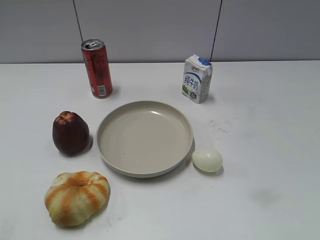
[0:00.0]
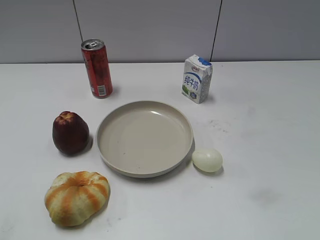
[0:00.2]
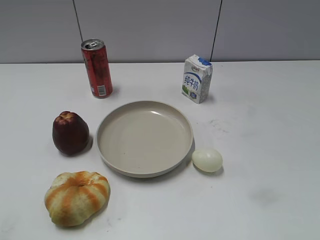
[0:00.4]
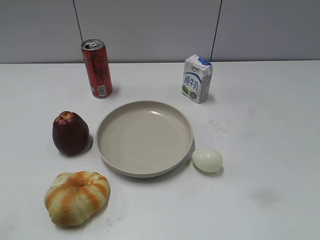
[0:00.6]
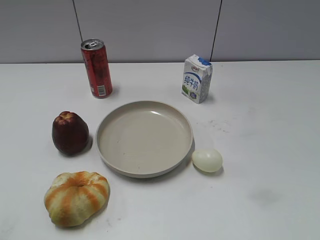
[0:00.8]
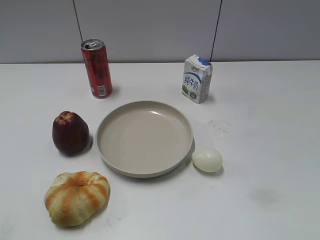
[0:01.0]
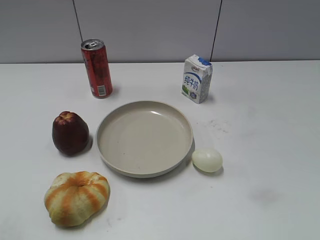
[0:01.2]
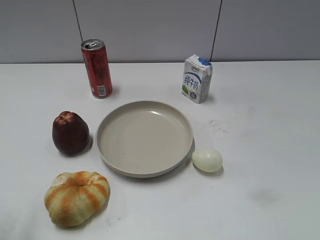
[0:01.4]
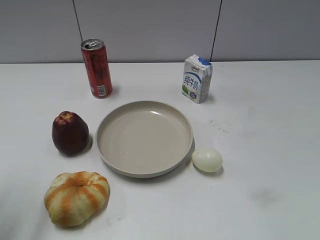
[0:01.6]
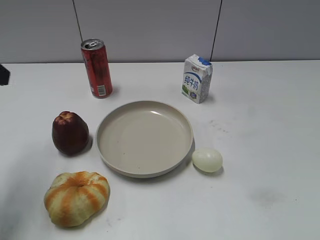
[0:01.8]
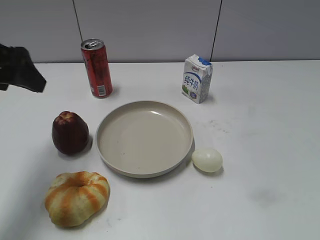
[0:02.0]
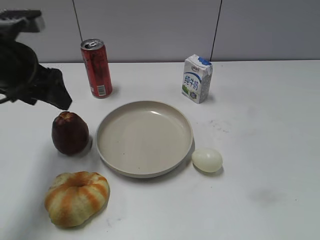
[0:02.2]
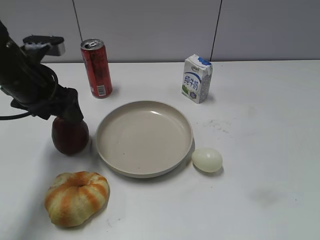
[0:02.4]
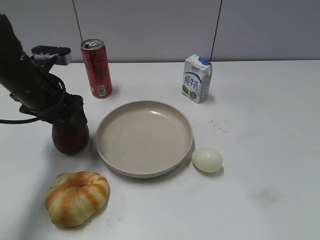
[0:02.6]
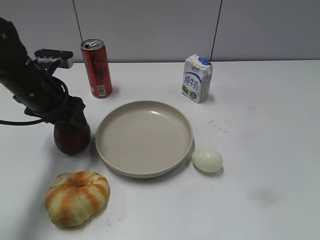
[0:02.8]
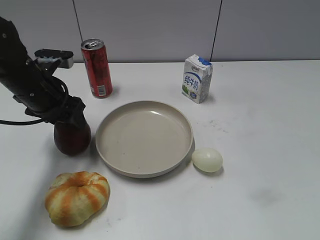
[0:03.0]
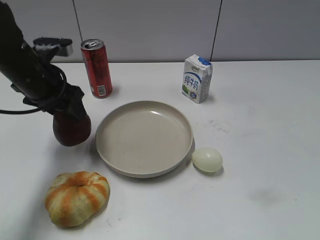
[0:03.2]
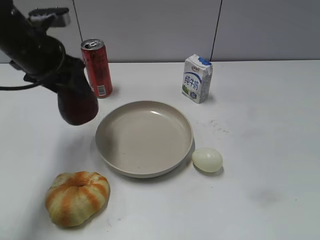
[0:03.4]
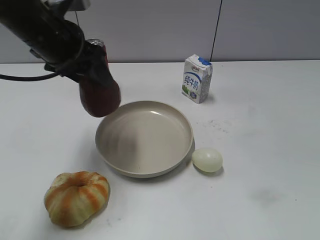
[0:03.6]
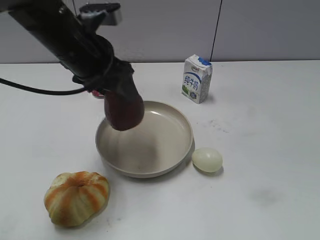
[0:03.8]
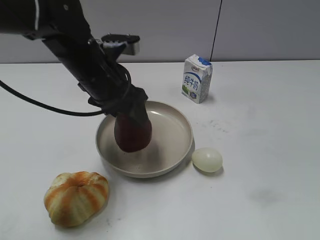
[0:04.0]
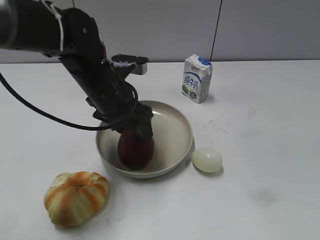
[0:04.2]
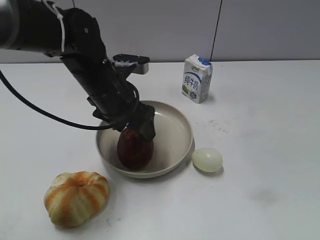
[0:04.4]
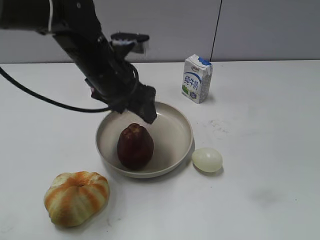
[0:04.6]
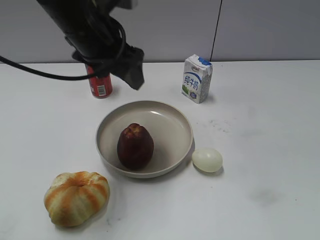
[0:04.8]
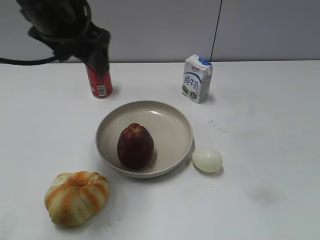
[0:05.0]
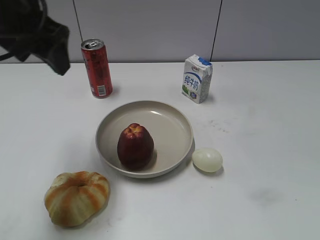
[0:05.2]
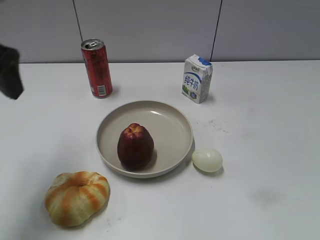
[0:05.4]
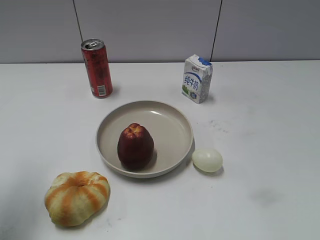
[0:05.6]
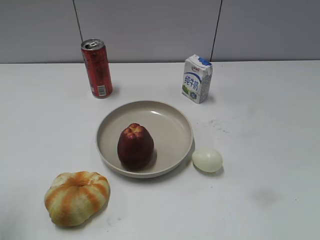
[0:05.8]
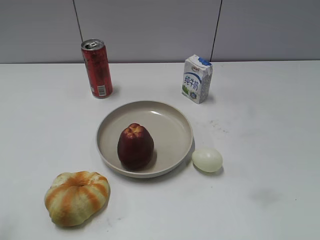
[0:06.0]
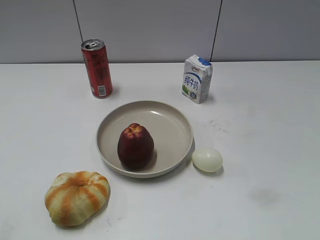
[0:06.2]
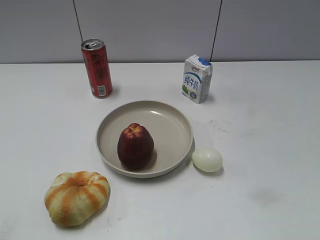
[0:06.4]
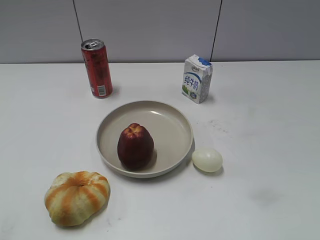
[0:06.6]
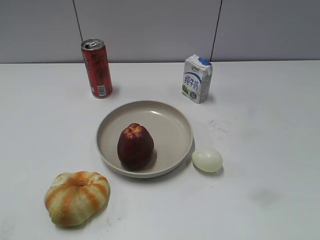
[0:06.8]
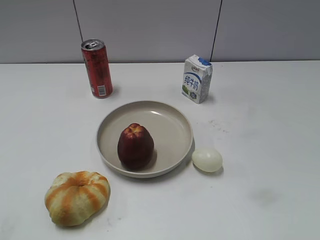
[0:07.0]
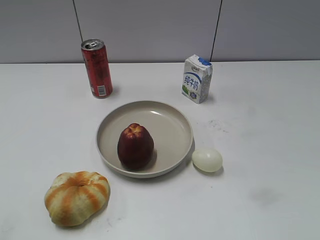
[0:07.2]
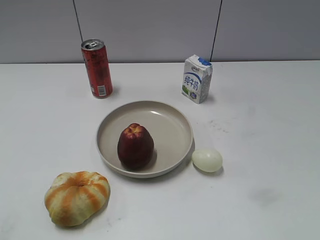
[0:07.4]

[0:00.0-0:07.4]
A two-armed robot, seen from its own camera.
Step, 0:01.0 to 0:02.8: Grasp the apple with left gripper.
Step, 0:03.2 to 0:04.4: Place the apple on the plate with left gripper.
0:01.4 to 0:03.0: The left gripper travels forward, downward and to the right by about 30 cm, and closes.
0:03.0 to 0:04.4: The left gripper moves to the right, about 10 cm, and opens.
0:04.4 to 0:06.0: The left gripper heads to the left, backward and upward, covering about 35 cm.
